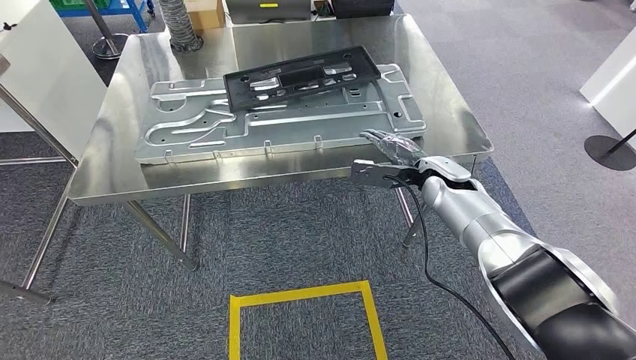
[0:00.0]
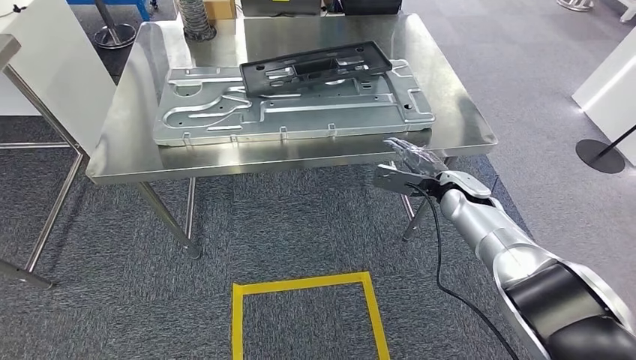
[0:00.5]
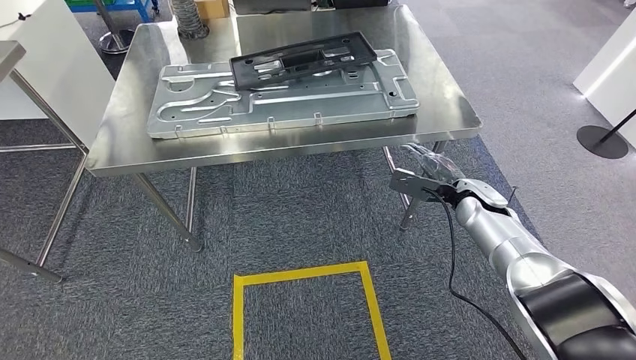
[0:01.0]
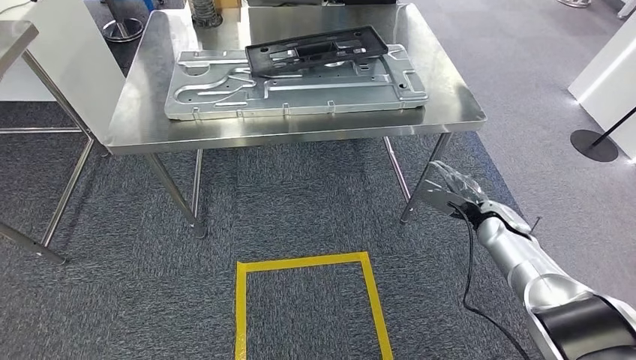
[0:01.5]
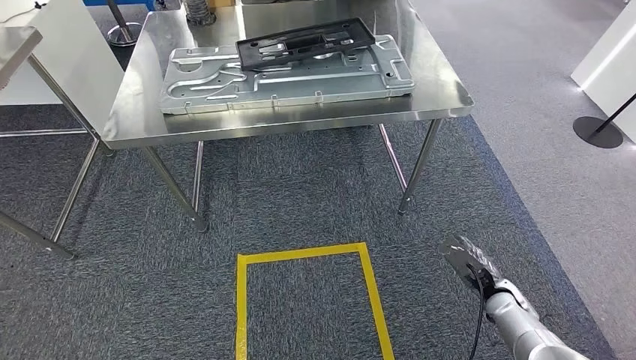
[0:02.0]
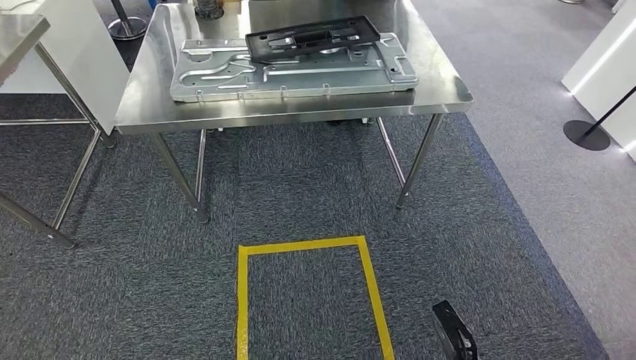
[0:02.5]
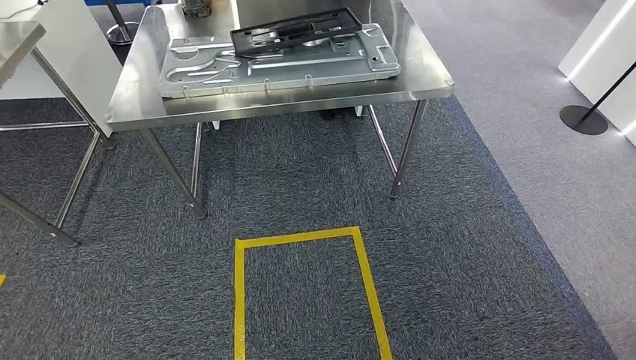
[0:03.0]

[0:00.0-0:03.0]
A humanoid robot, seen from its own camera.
Step, 0:00.0 to 0:03.0: Move to the initial position of the shelf.
